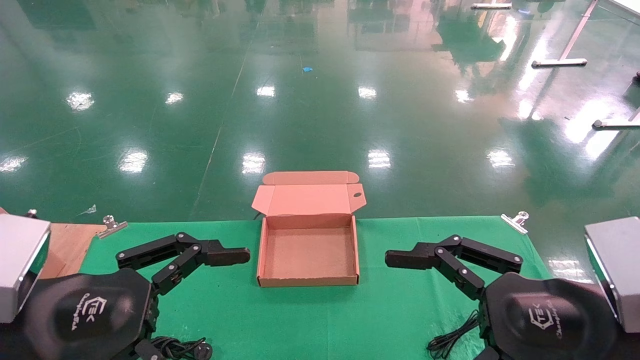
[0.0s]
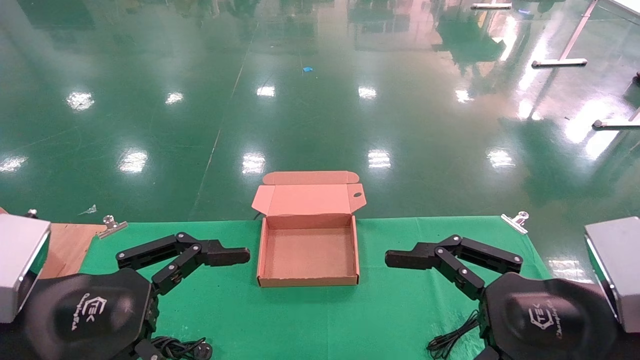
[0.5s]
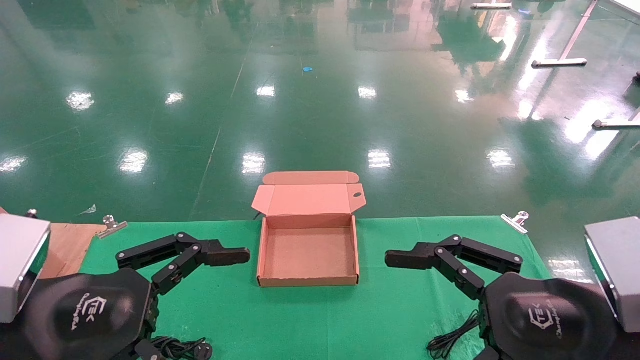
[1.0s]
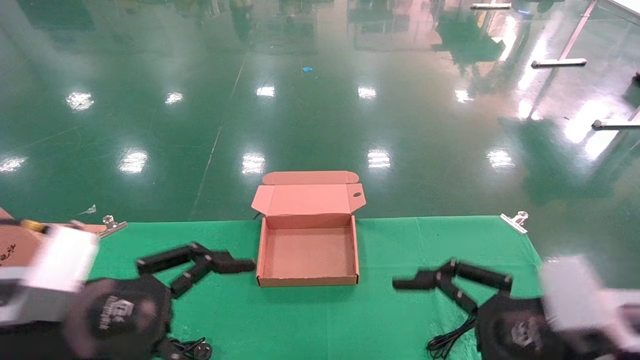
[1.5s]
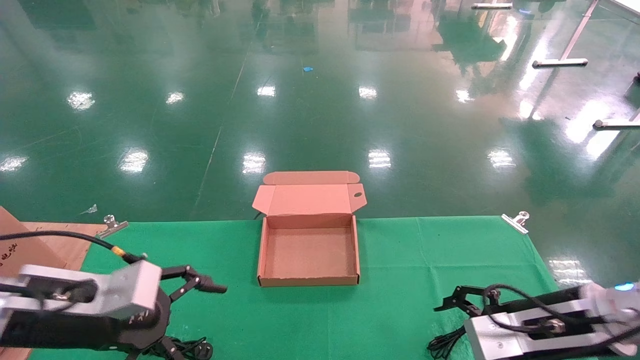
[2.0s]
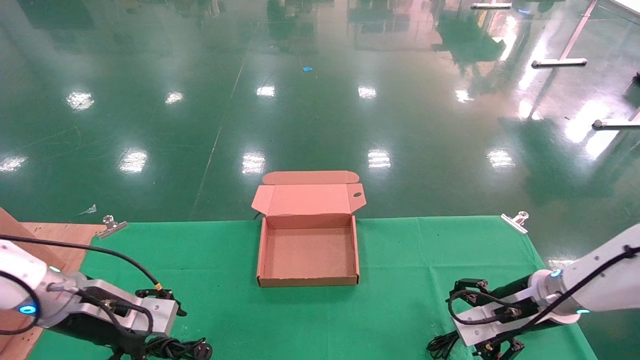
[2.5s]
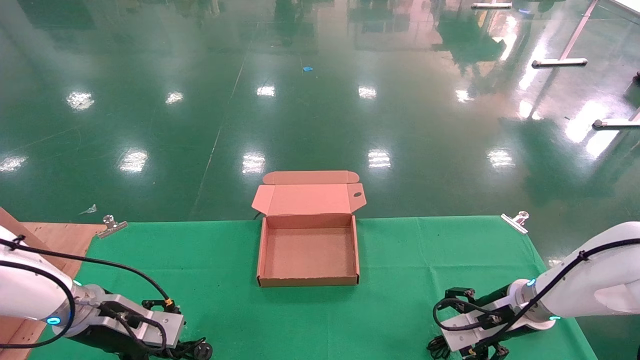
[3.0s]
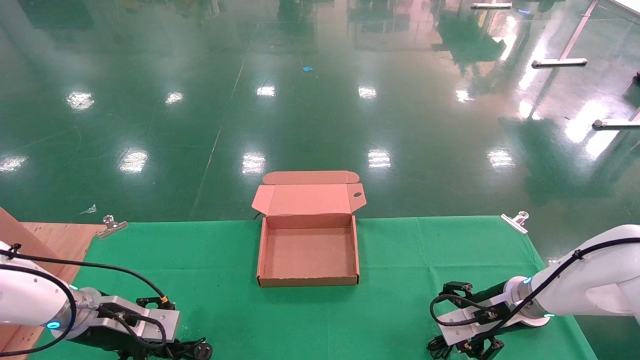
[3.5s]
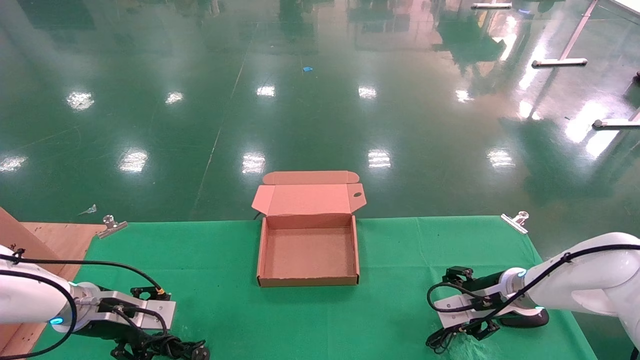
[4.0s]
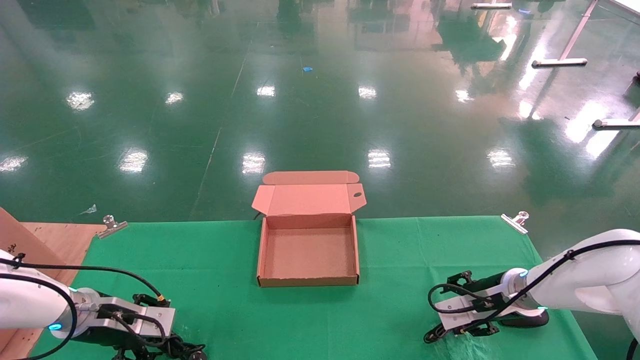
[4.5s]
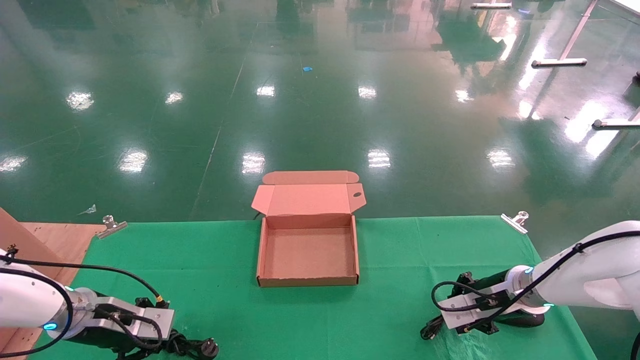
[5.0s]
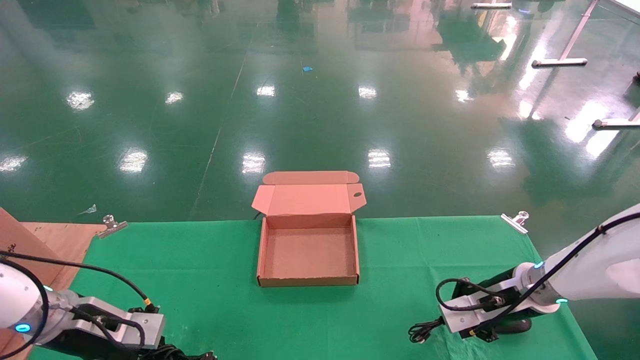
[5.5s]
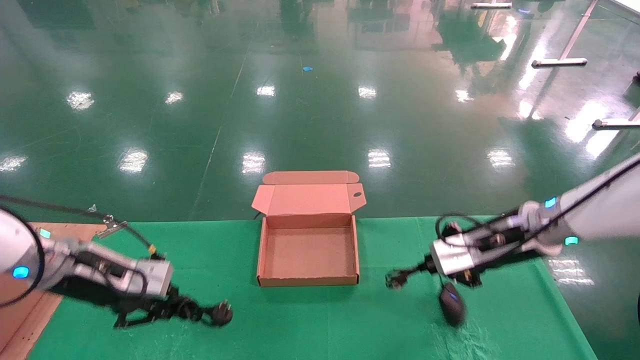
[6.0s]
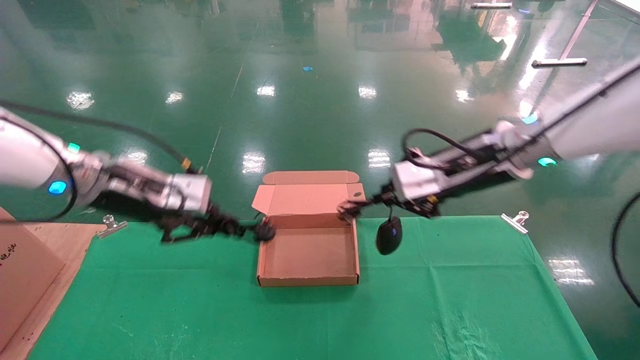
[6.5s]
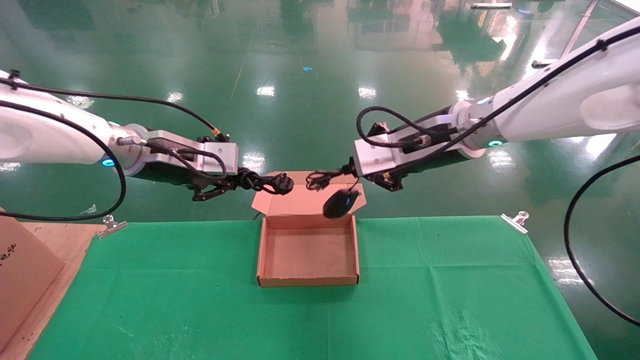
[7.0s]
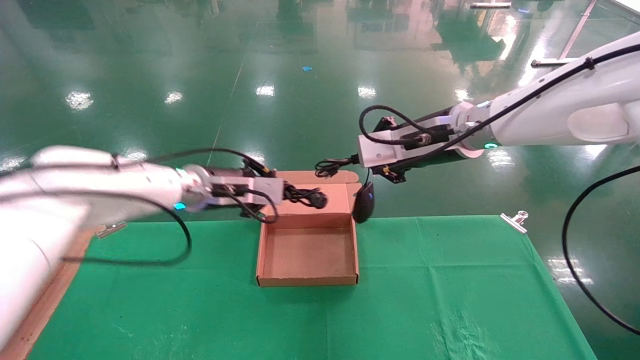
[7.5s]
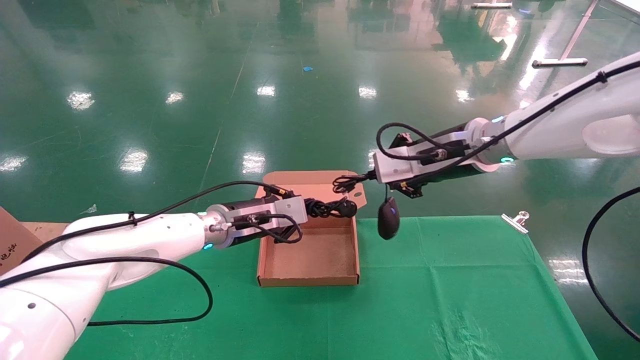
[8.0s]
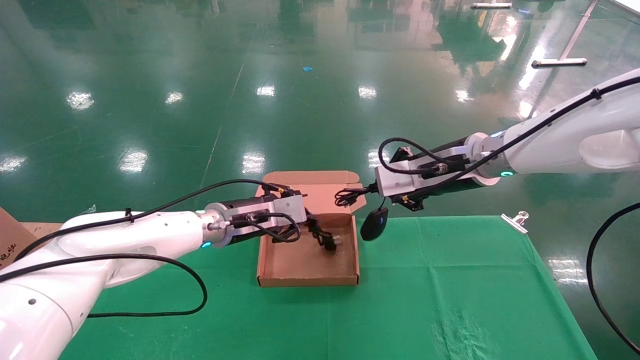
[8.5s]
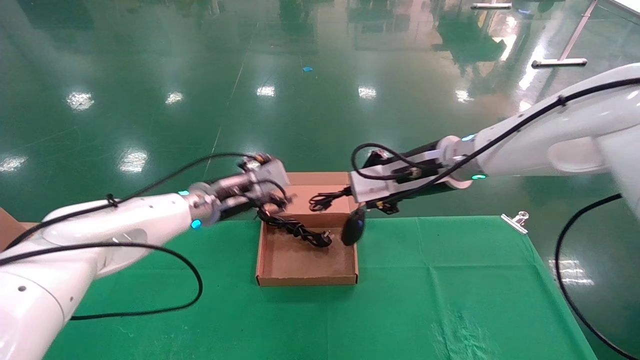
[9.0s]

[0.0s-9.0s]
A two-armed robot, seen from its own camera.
Step, 2.0s to 5.5s: Grab and lift both the mouse and power cord from the accessory packaging area at the same time.
0.0s to 2.0s: Both grippers travel together forward and downward, approximately 15 cm.
2.0s to 4.5s: The left gripper shifts approximately 15 cm forward, downward and to the left, and closes up, while the right gripper travels forward and downward by about 15 cm.
4.5s to 7.0s: The right gripper goes roughly 30 cm upward and to the left, and closes up. The left gripper is displaced upward and to the right by approximately 25 cm, and closes.
7.0s to 9.0s: The left gripper shifts some 10 cm downward, to the right and forward, and opens.

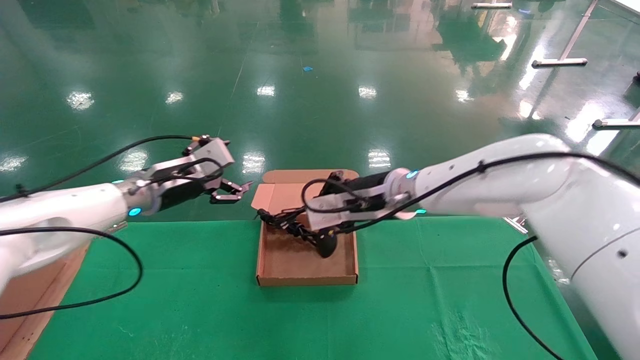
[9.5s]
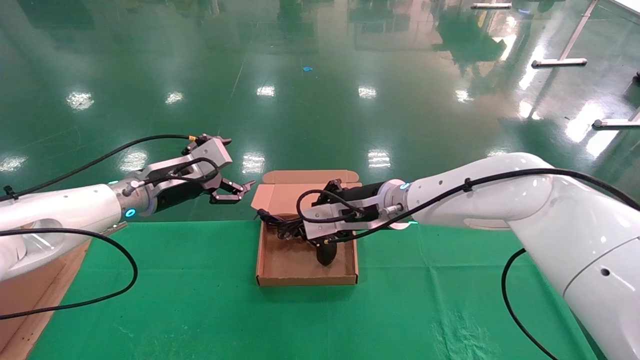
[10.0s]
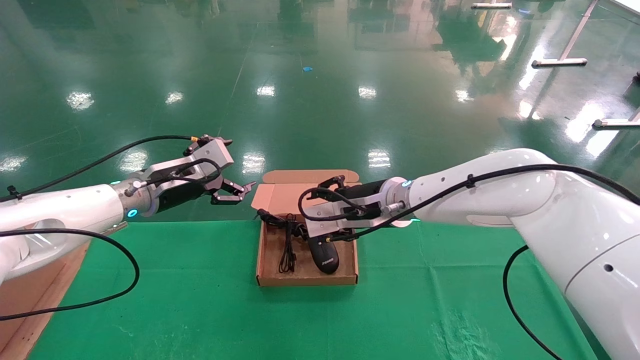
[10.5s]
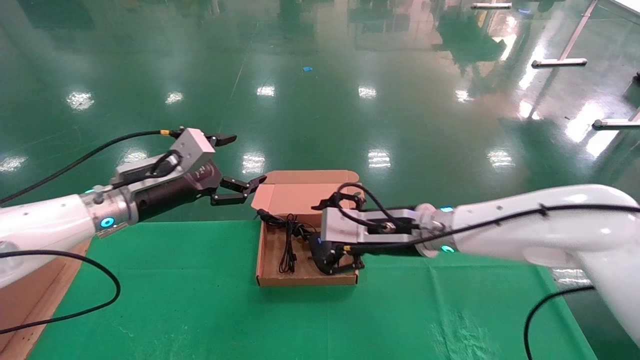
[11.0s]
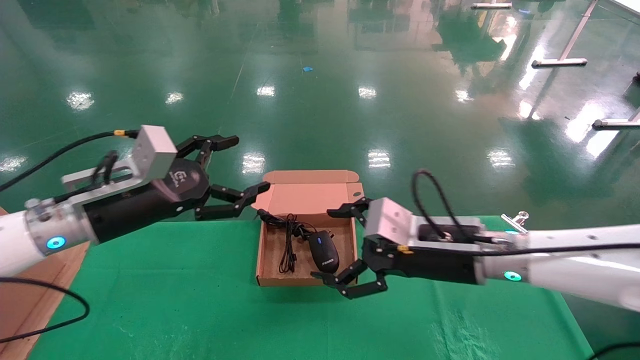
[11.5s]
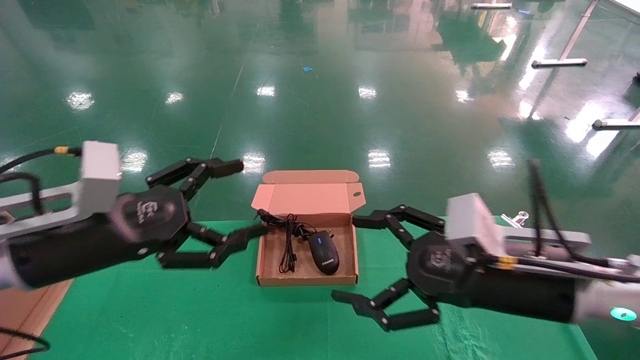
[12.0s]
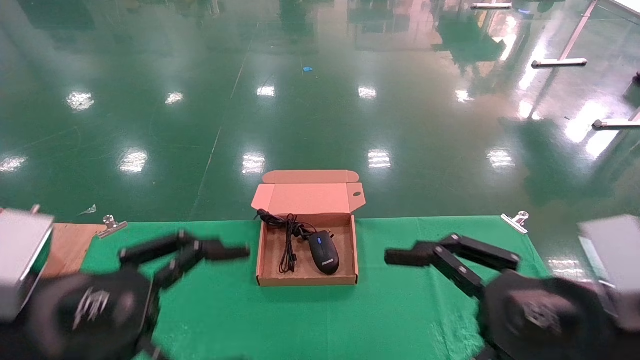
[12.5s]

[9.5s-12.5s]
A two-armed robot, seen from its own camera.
9.5s to 11.0s: The left gripper travels backward by approximately 5 cm; the right gripper ends up roughly 5 cm from where it was, and opens up.
11.0s to 12.5s: The left gripper goes approximately 25 cm backward, while the right gripper moves backward and to the right, some 25 cm.
